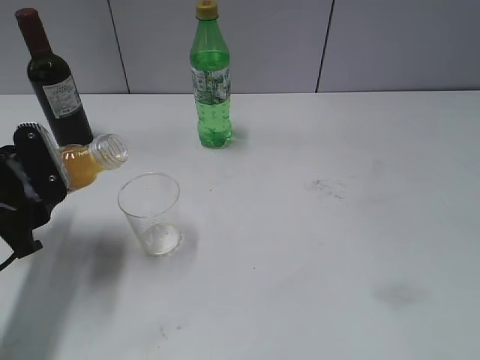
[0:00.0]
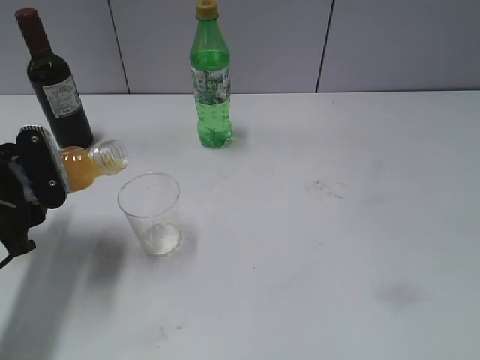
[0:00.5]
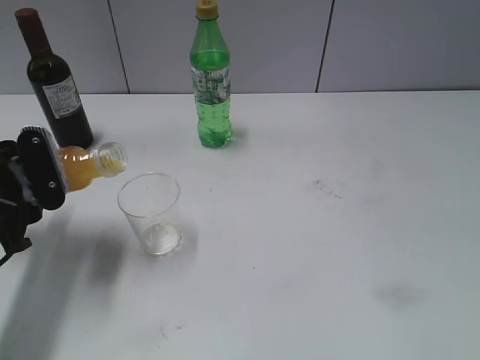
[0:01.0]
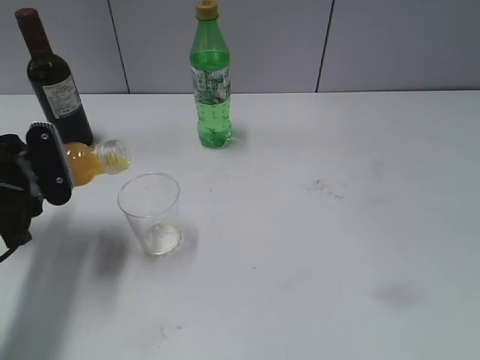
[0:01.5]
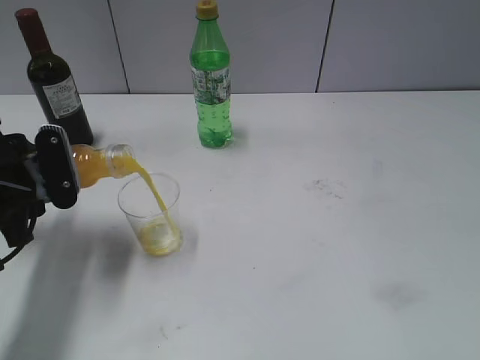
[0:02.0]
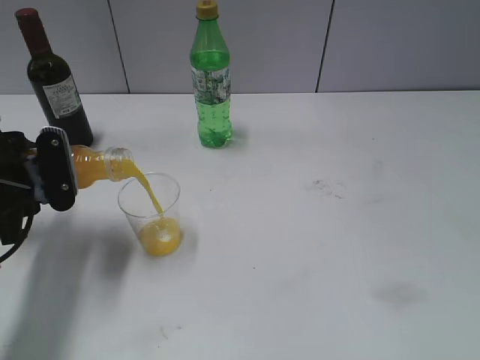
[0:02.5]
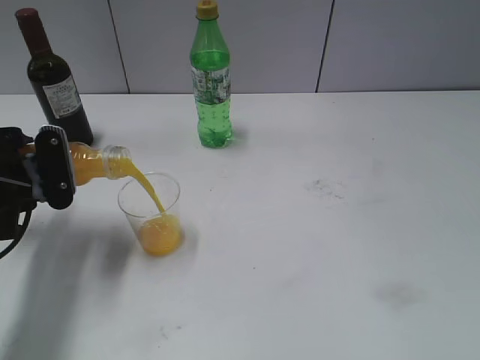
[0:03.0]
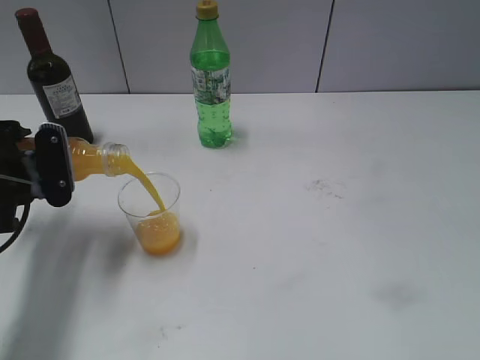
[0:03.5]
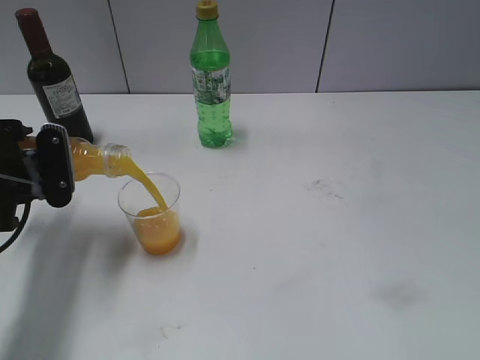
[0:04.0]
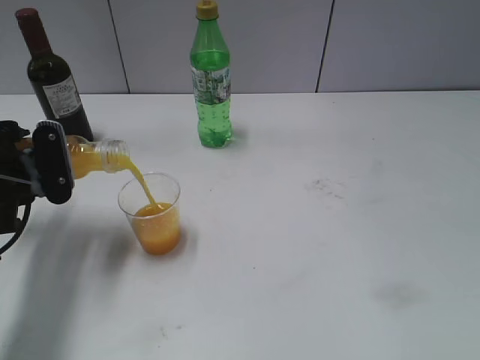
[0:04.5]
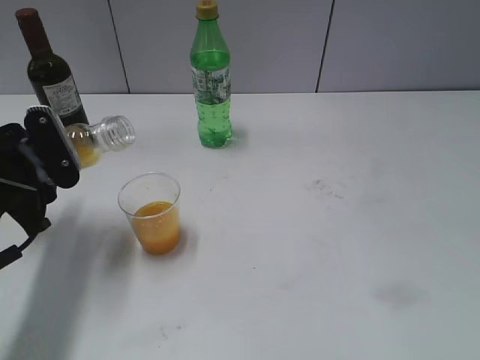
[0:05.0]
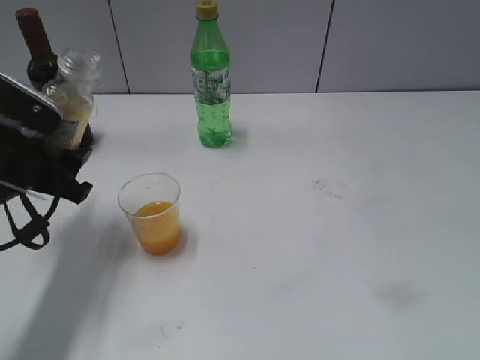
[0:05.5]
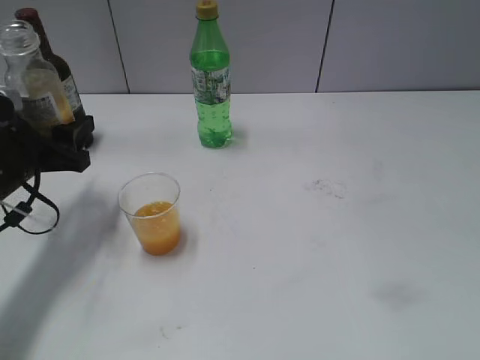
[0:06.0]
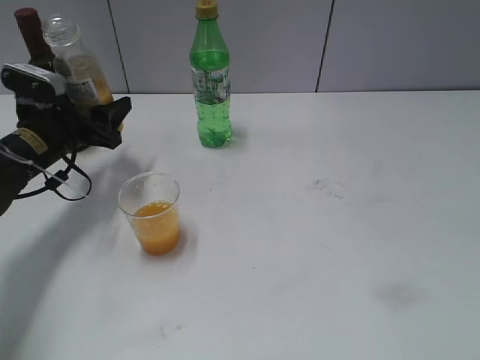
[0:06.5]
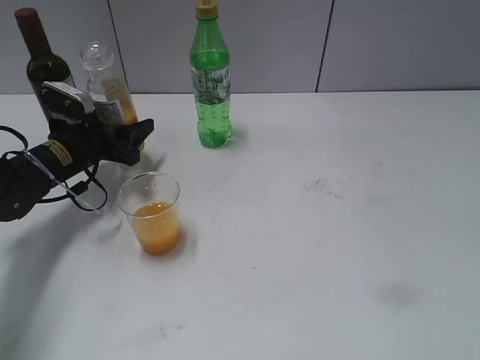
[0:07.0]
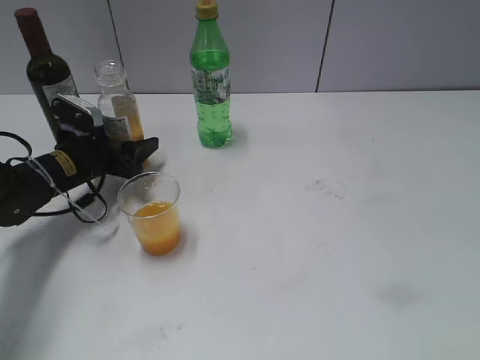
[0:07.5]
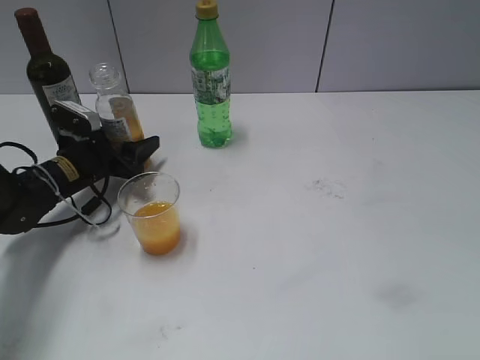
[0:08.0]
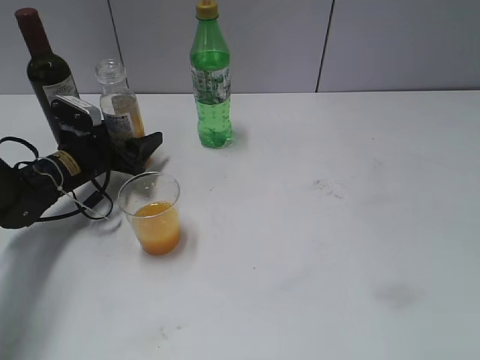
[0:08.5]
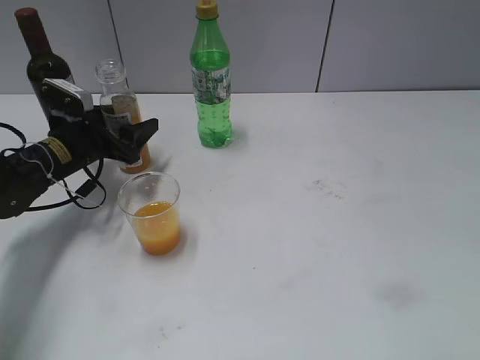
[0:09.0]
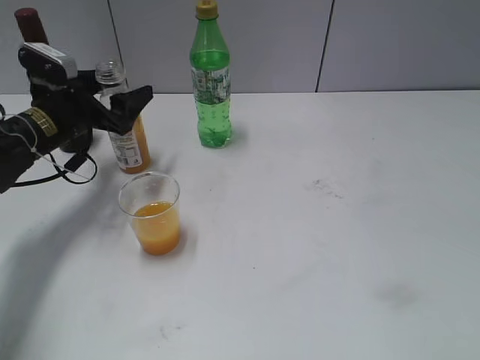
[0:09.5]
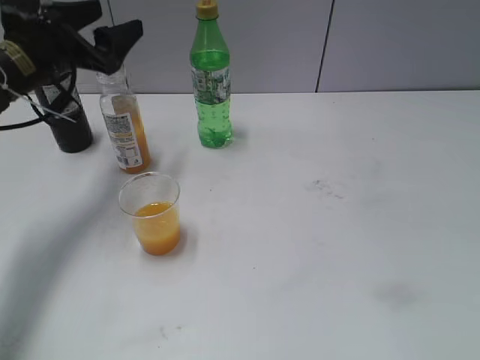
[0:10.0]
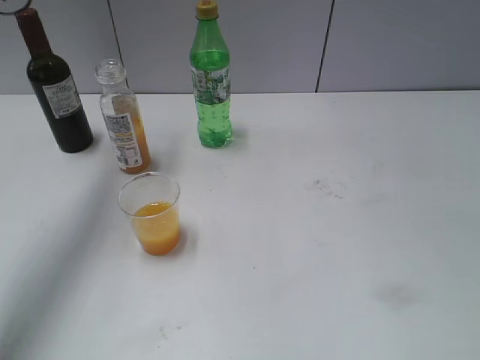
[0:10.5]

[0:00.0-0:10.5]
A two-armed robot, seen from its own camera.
Step, 0:00.0 to 0:04.5: Pour the orange juice from bottle to cup with left gripper.
Step, 0:05.0 to 0:08.5: Place the orange juice bottle on the table with left gripper.
0:00.0 to 0:02.0: There are only small adjustments of the grippers.
0:02.0 to 0:04.0: The grippers stay close to where they were, moving slightly.
0:04.0 to 0:06.5: The left gripper is displaced forward by approximately 10 cm.
0:06.5 to 0:08.5: The left gripper moves downward, approximately 5 cm, and opens.
0:08.5 to 0:10.5: The left gripper travels upward by about 30 cm, and opens up.

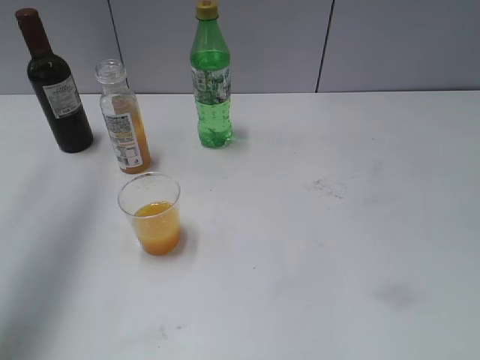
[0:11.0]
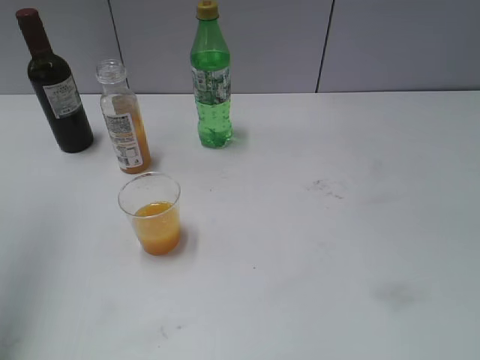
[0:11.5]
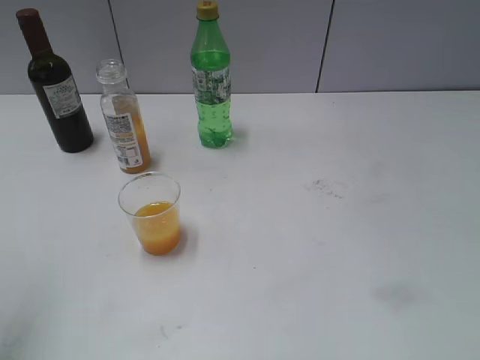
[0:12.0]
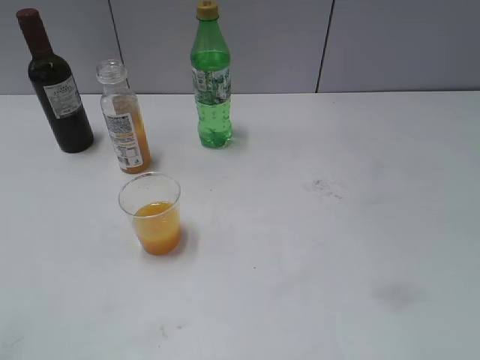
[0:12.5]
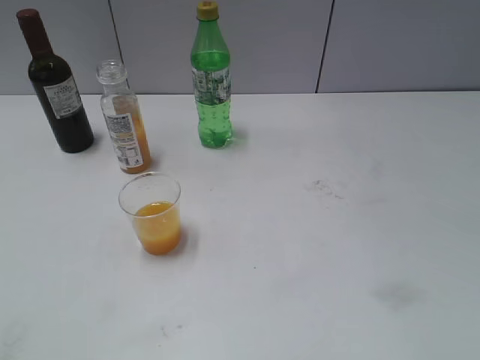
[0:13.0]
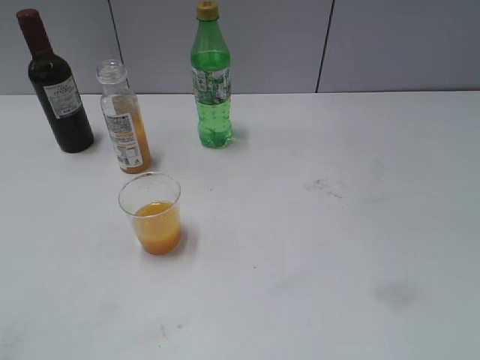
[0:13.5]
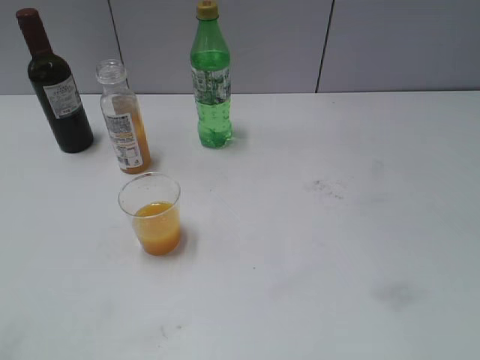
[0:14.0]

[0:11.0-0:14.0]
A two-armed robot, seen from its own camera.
0:11.0 to 0:12.5: The left gripper heads backward and downward, covering some 30 cm.
